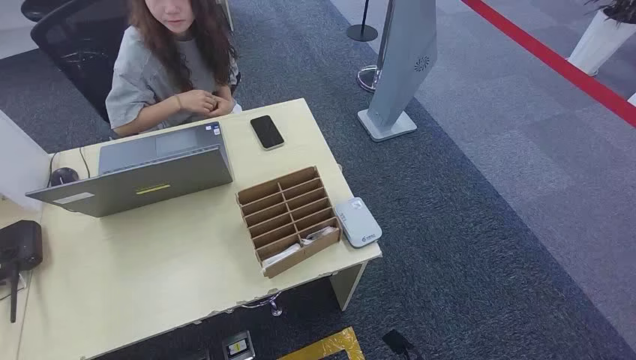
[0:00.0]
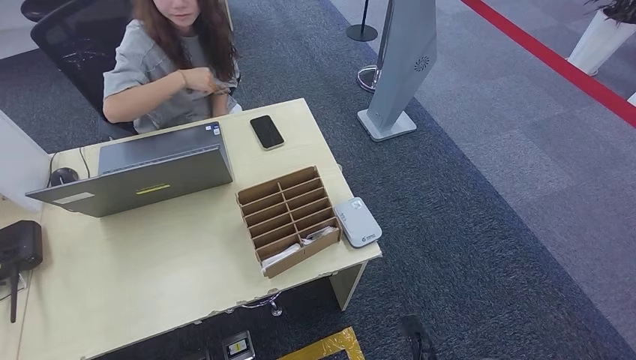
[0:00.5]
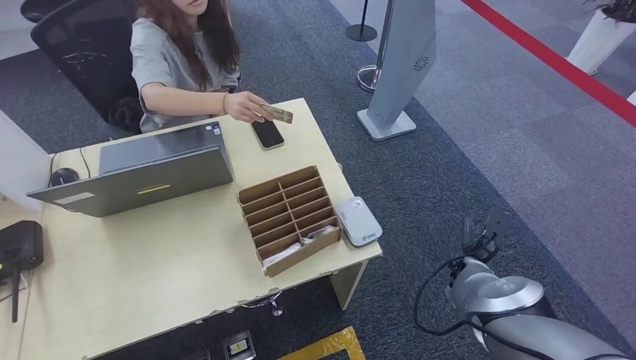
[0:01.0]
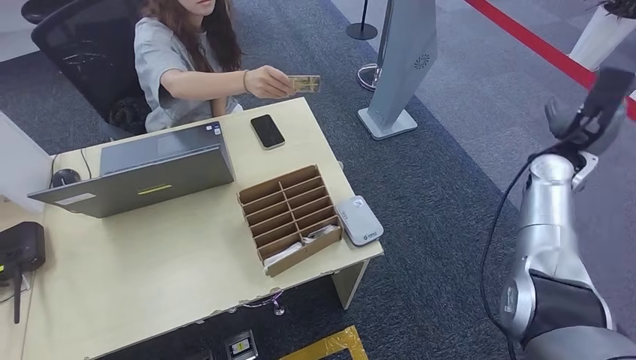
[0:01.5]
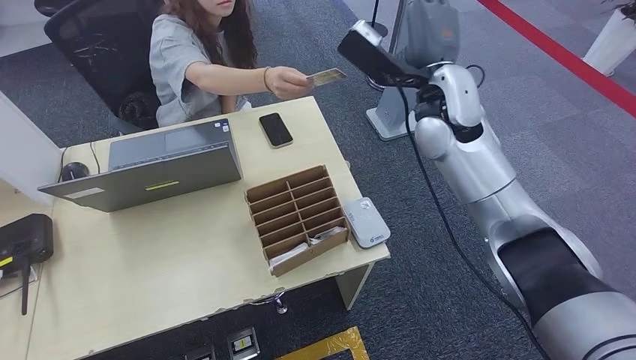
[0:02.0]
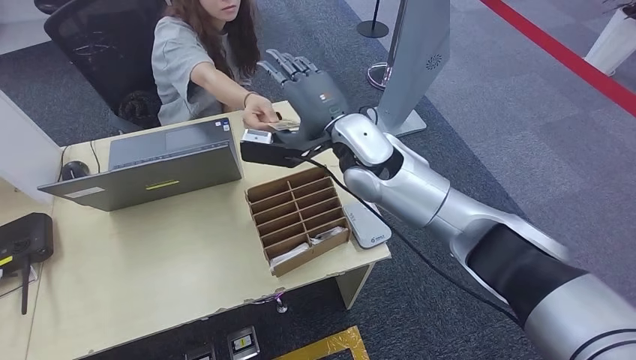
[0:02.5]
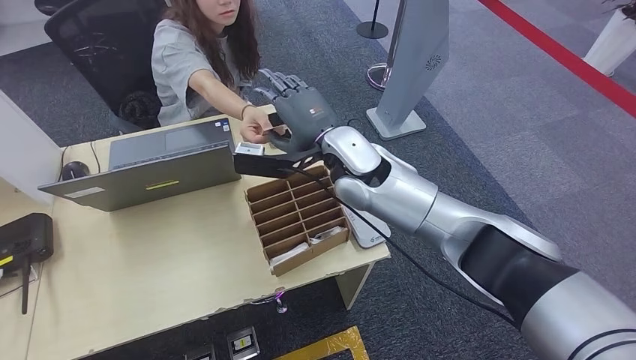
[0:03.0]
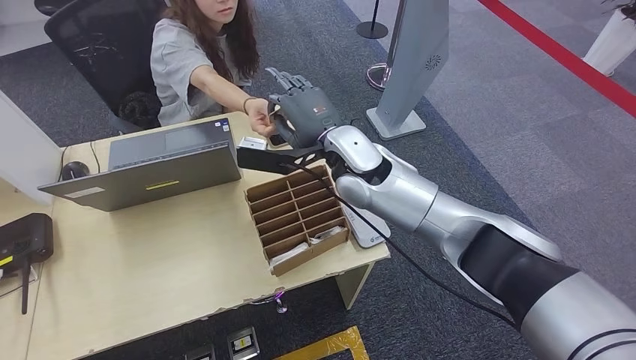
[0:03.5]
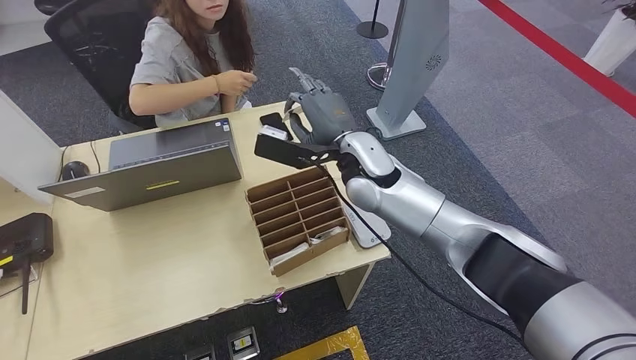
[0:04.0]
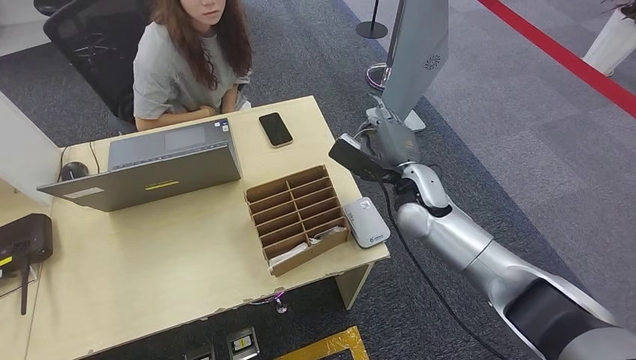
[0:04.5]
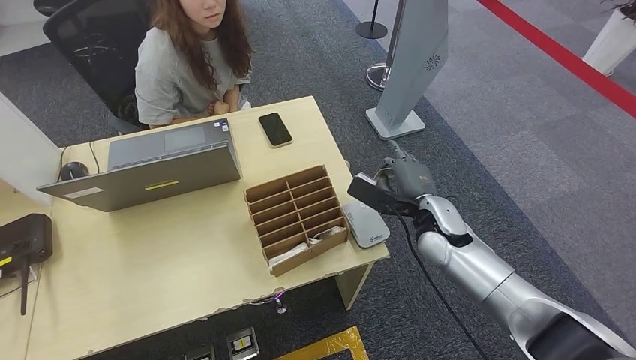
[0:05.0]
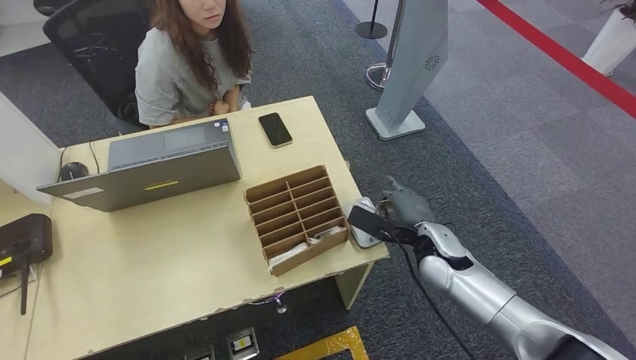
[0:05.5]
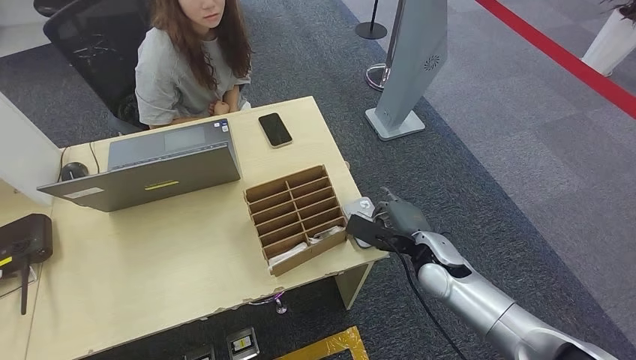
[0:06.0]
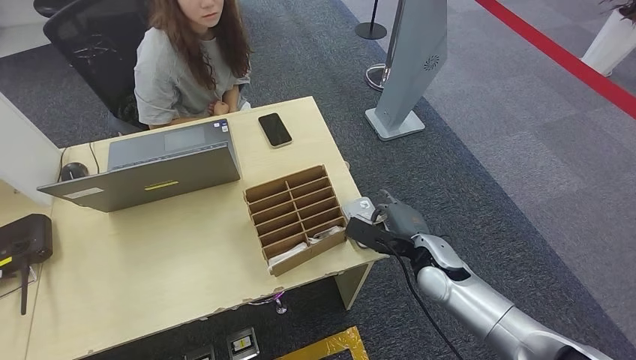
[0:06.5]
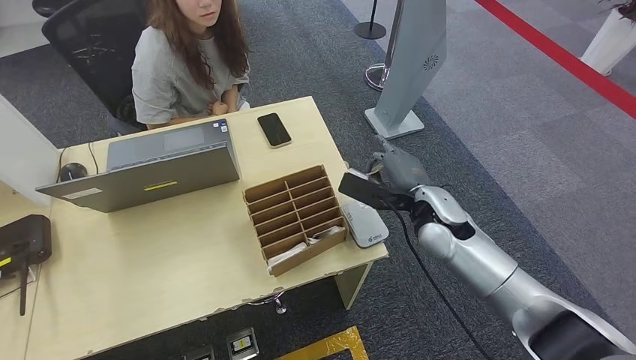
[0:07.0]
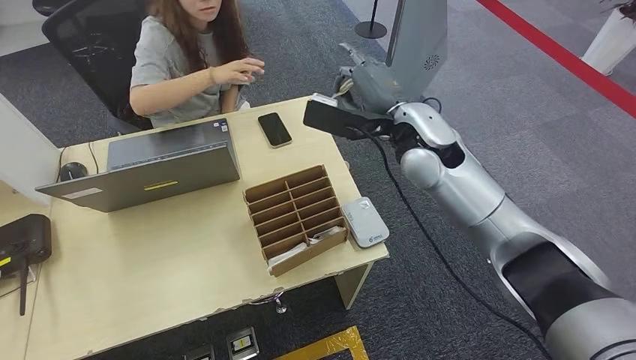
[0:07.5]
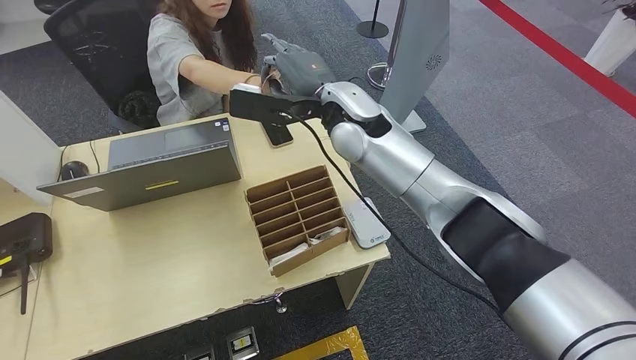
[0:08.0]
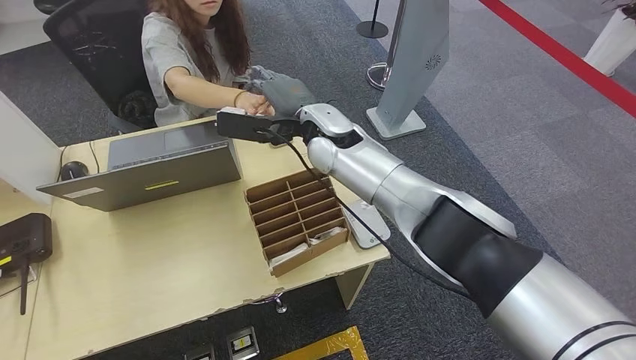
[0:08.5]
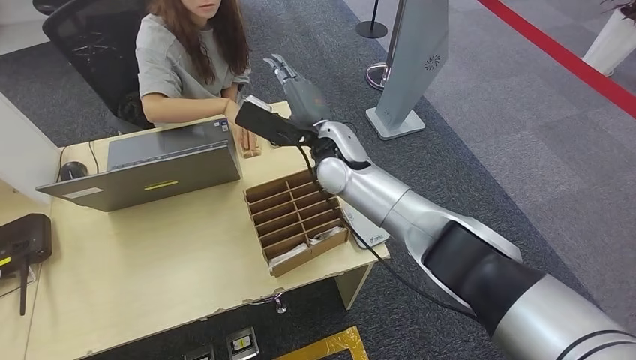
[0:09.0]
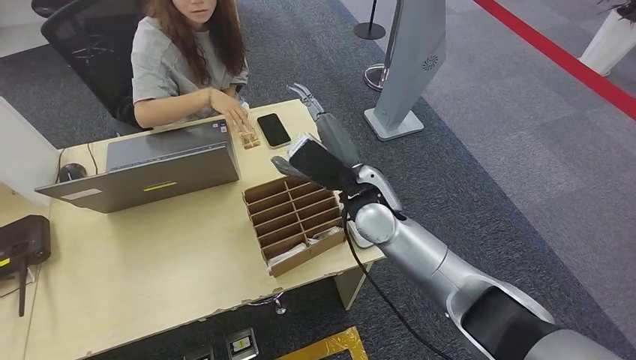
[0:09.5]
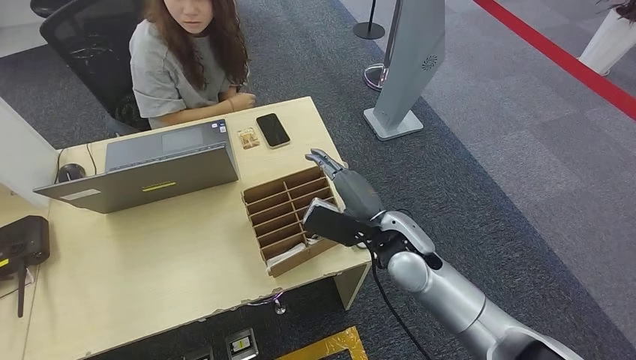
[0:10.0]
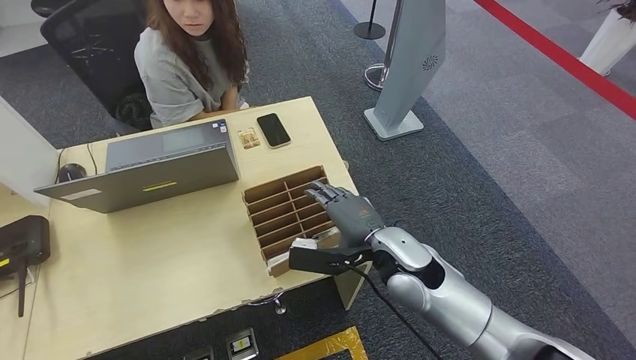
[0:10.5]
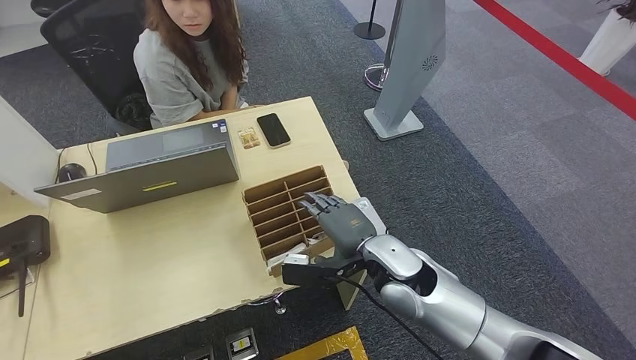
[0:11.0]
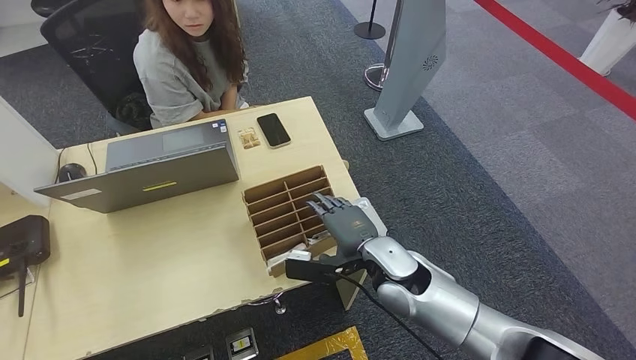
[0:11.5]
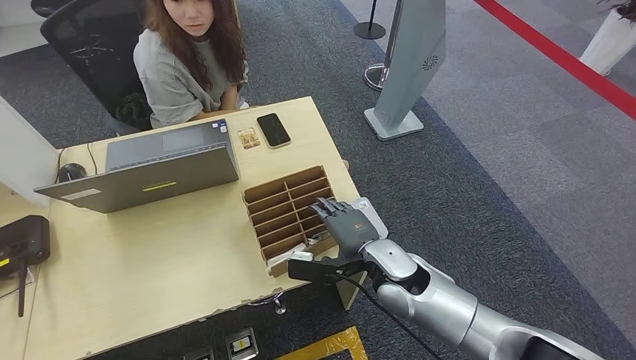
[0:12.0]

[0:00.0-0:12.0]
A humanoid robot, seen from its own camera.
Step, 0:00.0 to 0:03.5: Take the ID card from the person's hand.
Step, 0:04.0 to 0:06.0: Place the ID card on the card reader.
Step, 0:06.5 to 0:09.5: Hand the ID card to the person.
0:04.0 to 0:06.0: The right hand heads downward, backward and to the right, covering some 25 cm.
0:10.0 to 0:12.0: The right hand heads downward, covering approximately 5 cm.

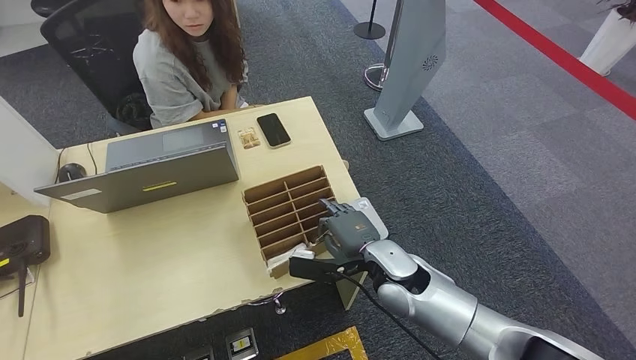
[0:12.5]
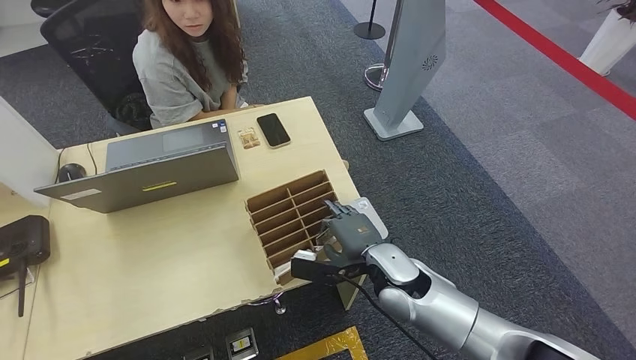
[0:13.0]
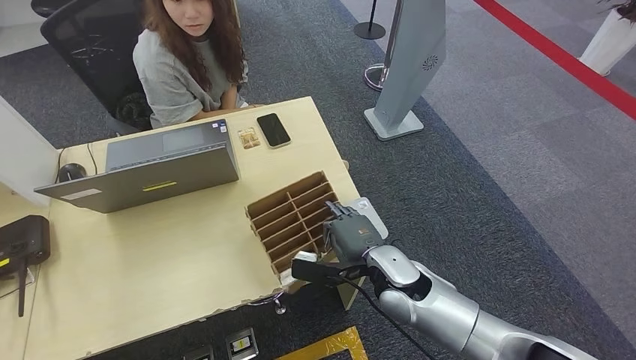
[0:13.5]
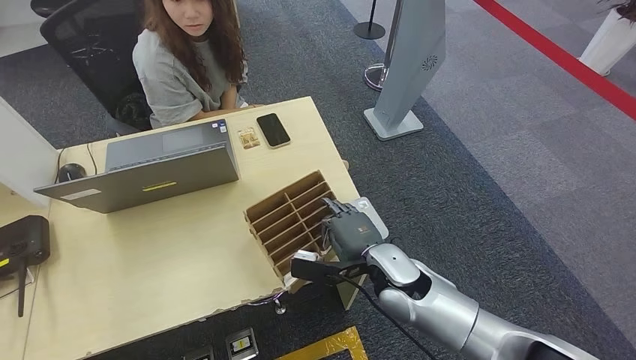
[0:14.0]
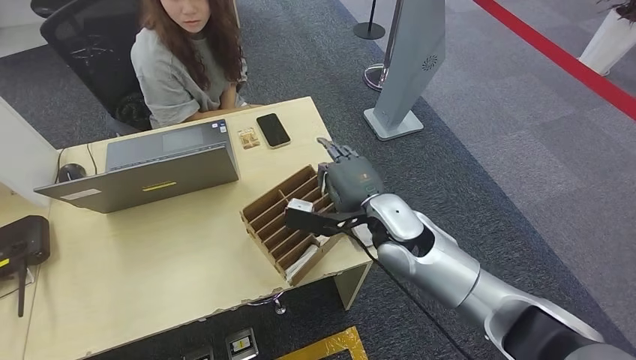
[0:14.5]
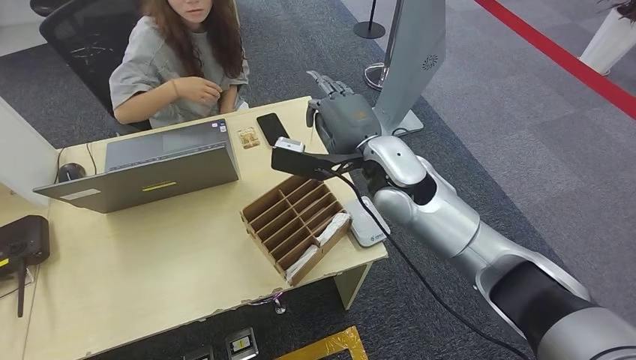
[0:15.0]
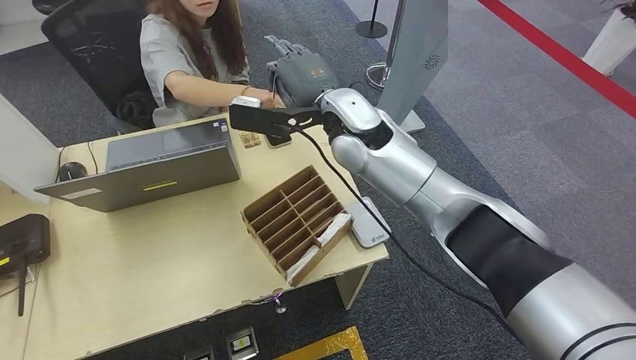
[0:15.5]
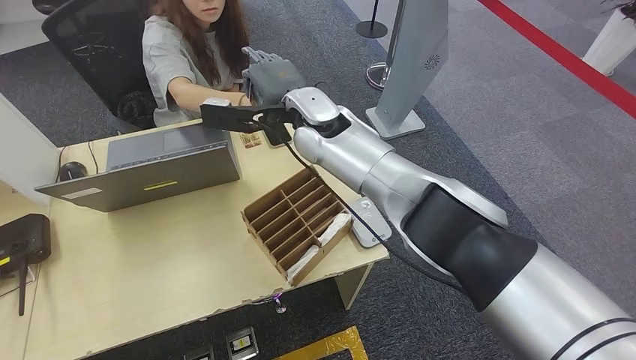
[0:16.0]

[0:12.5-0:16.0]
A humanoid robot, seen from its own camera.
Step, 0:12.5 to 0:16.0: Hand the room key to the person.
0:12.5 to 0:14.5: The right hand heads upward, covering some 5 cm.
